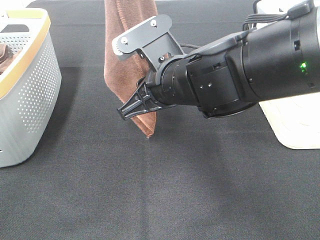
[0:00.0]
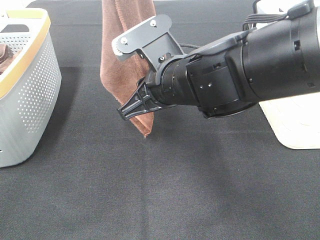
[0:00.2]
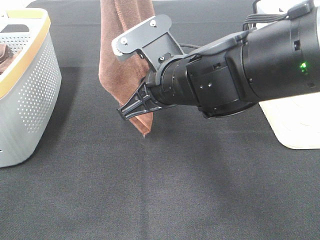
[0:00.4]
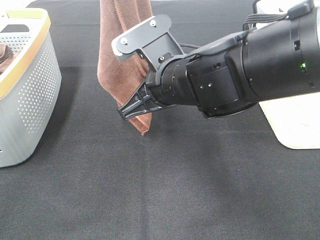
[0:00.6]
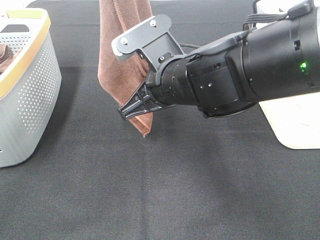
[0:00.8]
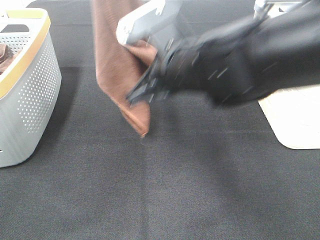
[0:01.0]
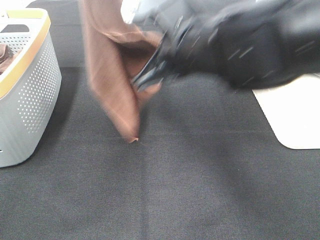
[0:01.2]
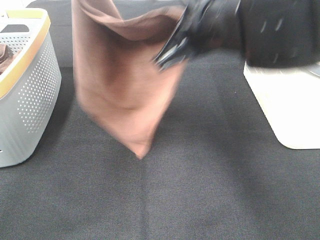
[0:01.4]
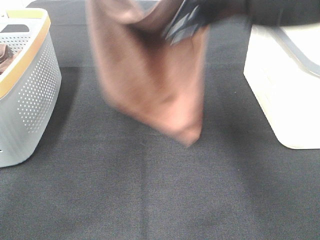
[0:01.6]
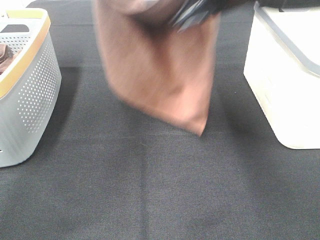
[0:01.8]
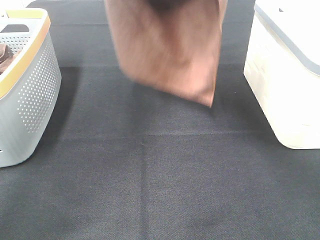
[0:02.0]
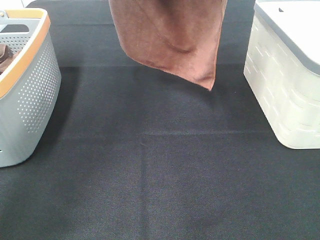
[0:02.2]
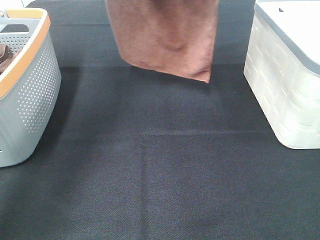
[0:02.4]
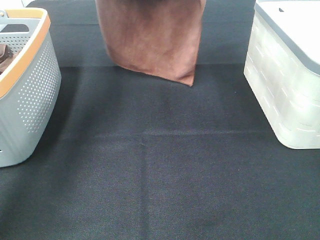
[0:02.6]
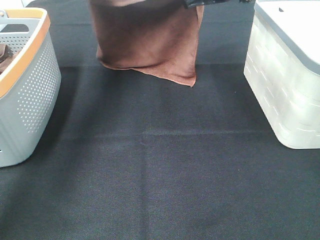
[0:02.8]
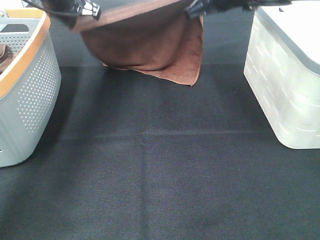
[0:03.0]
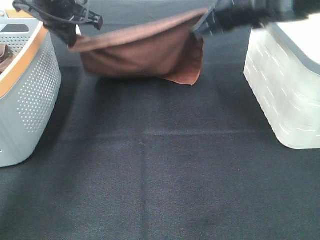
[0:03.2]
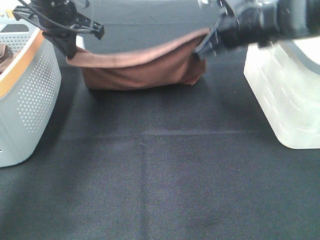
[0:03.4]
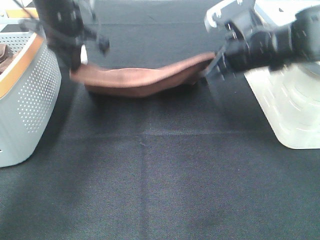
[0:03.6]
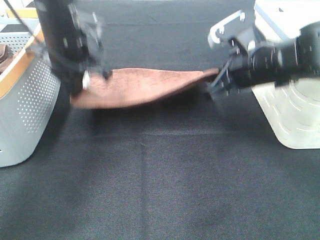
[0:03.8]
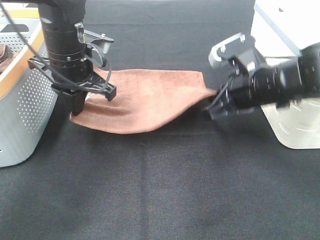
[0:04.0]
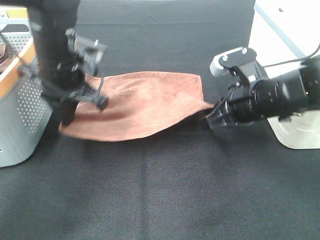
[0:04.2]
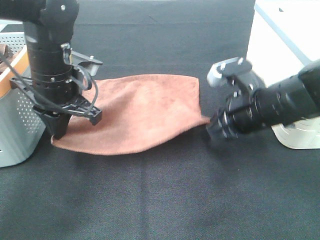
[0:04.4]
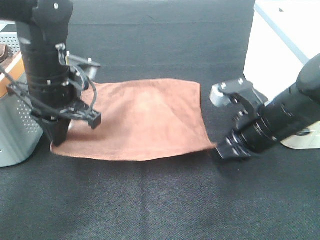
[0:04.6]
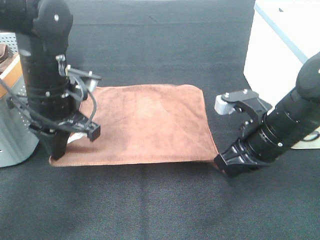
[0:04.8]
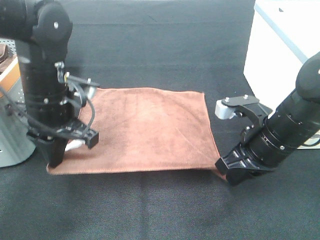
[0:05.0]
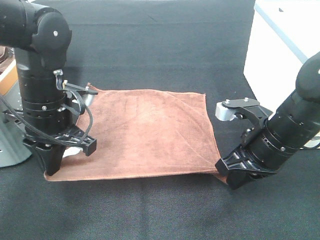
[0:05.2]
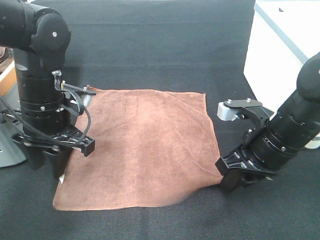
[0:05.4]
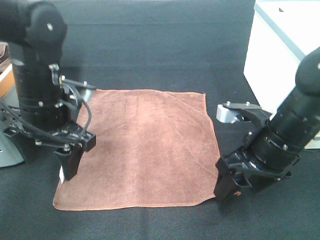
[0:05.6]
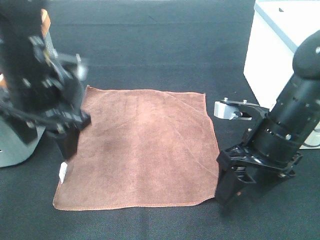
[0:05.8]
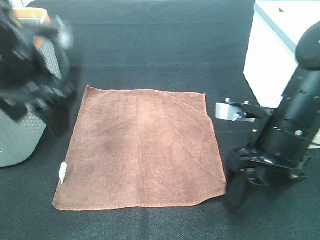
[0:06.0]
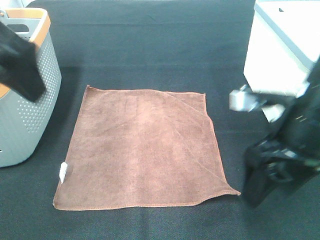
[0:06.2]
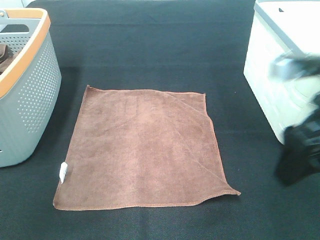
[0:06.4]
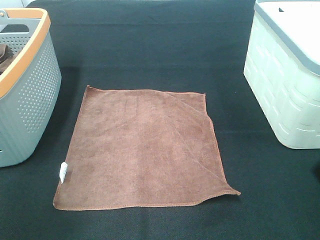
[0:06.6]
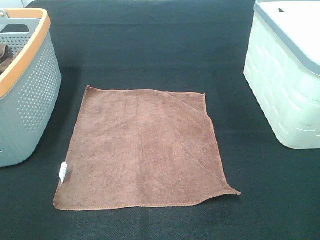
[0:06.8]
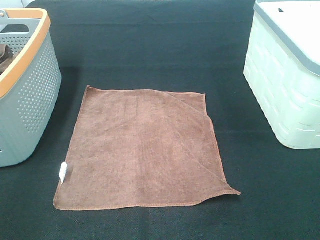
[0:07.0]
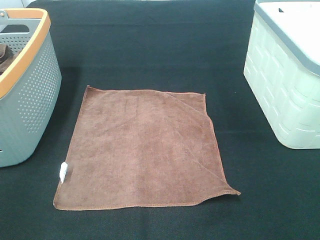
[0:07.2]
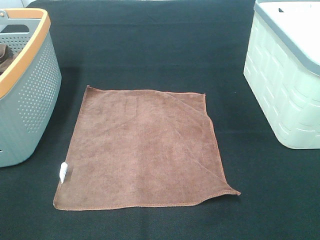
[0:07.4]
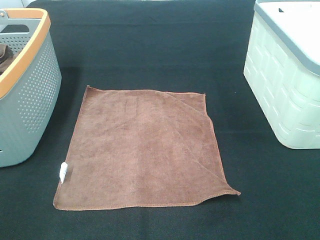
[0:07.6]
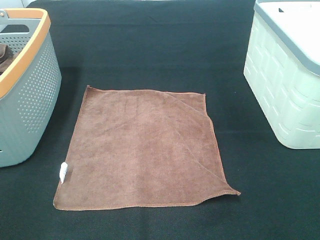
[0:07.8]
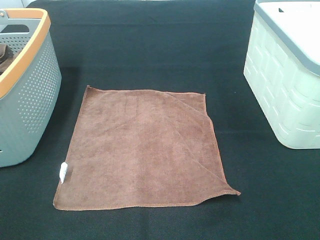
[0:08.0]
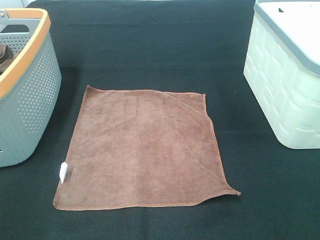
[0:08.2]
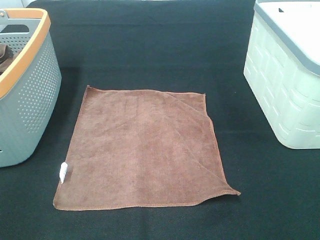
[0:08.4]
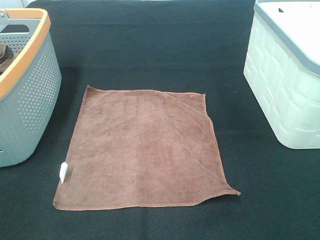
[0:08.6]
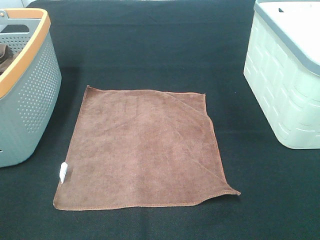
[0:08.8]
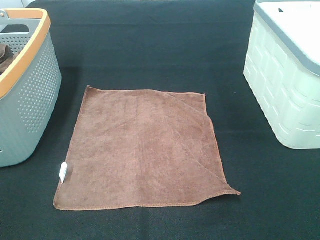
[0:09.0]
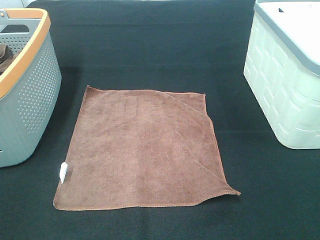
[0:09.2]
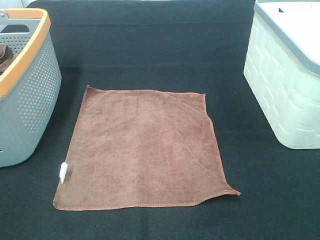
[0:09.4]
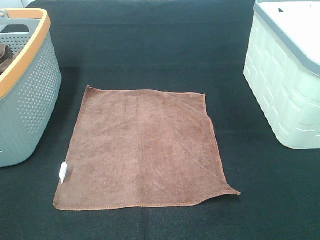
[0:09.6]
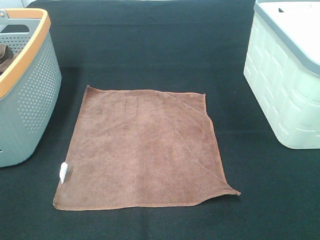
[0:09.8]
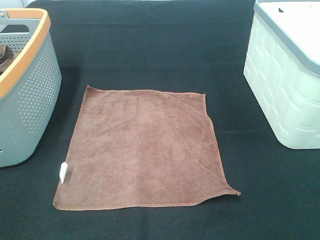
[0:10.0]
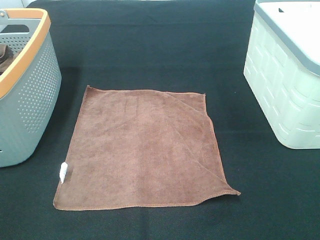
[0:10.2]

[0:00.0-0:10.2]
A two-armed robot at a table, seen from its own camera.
Task of the whole recording: Remove the towel and place it.
0:00.0 to 0:01.4: The right gripper goes roughly 10 cm upward, and closes its fingers, while the left gripper is displaced downward and forward by approximately 10 cm.
0:01.4 to 0:03.0: The left gripper is displaced downward and forward by approximately 20 cm. The right gripper moves forward, roughly 20 cm.
0:03.0 to 0:04.4: The two grippers go some 20 cm backward and downward.
0:04.4 to 0:05.8: The right gripper opens. Meanwhile the left gripper changes place by about 5 cm, and opens its fingers.
0:05.8 to 0:07.2: The left gripper goes roughly 30 cm backward and to the left. Meanwhile the right gripper heads backward, upward and to the right, covering about 25 cm.
0:08.8 to 0:10.2: Neither gripper changes place.

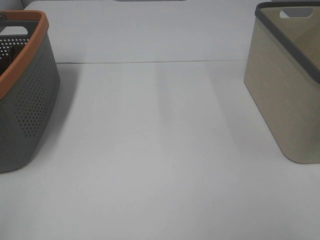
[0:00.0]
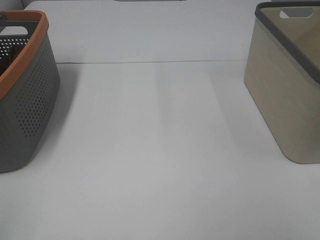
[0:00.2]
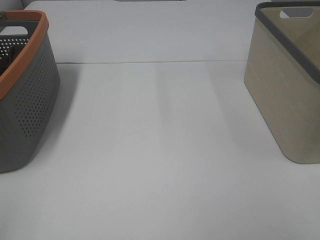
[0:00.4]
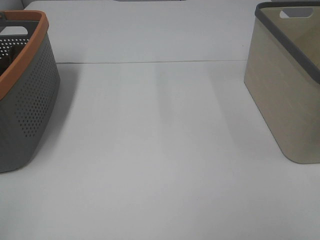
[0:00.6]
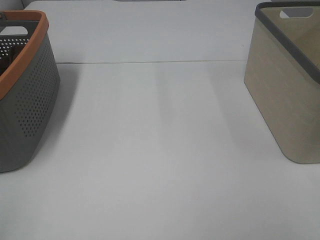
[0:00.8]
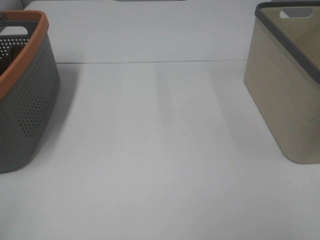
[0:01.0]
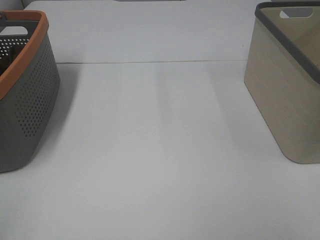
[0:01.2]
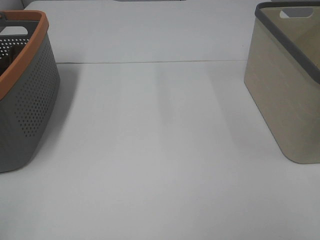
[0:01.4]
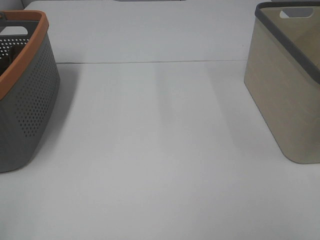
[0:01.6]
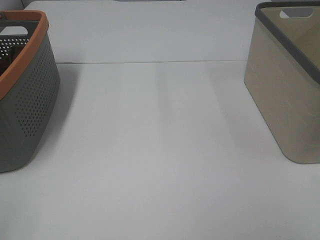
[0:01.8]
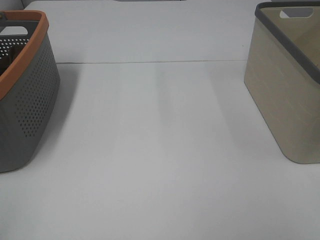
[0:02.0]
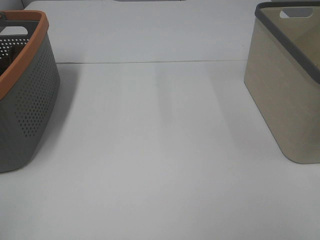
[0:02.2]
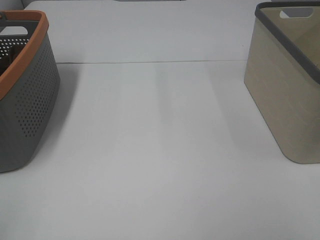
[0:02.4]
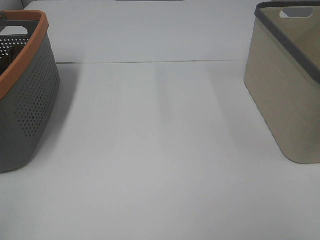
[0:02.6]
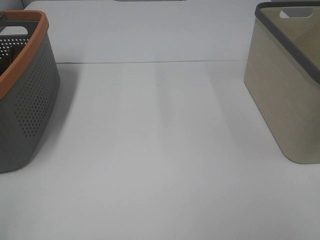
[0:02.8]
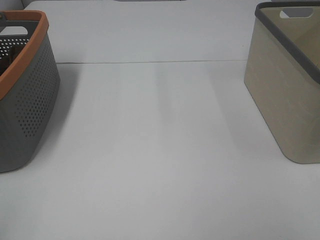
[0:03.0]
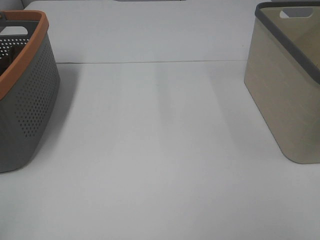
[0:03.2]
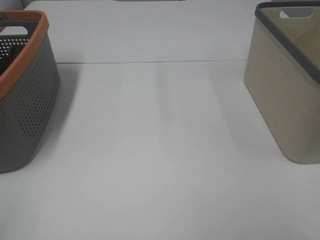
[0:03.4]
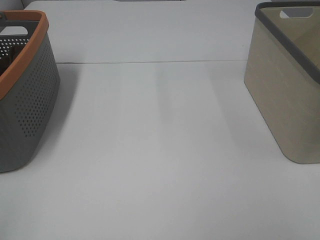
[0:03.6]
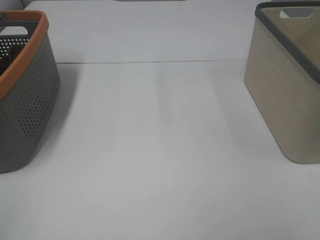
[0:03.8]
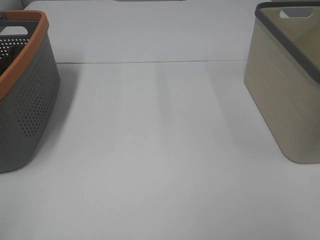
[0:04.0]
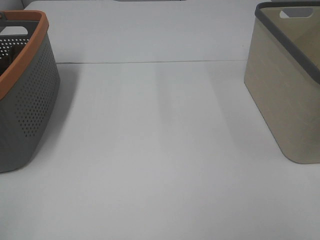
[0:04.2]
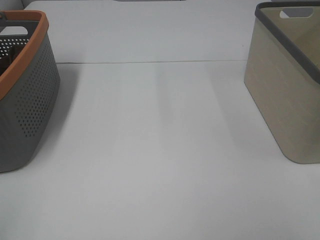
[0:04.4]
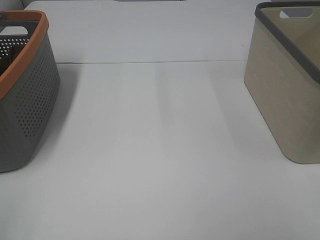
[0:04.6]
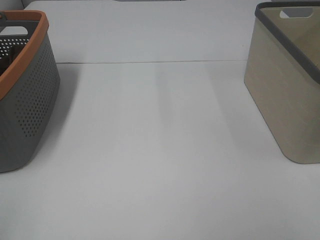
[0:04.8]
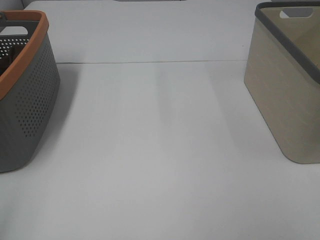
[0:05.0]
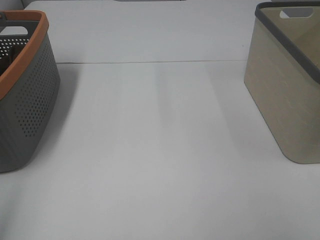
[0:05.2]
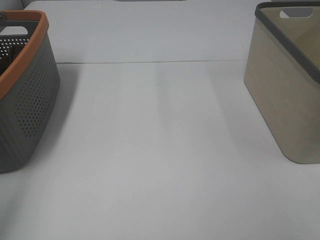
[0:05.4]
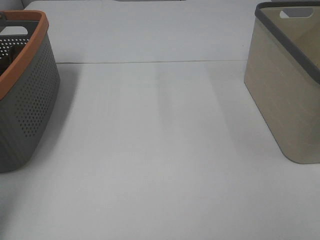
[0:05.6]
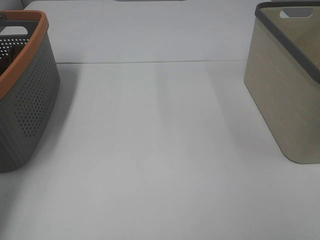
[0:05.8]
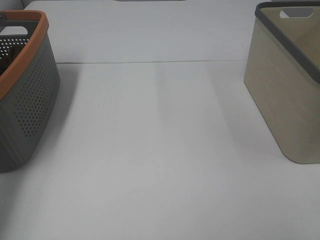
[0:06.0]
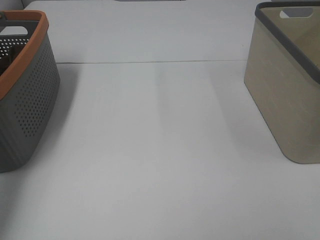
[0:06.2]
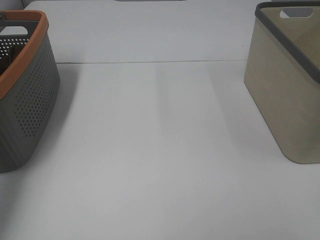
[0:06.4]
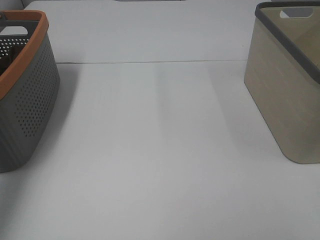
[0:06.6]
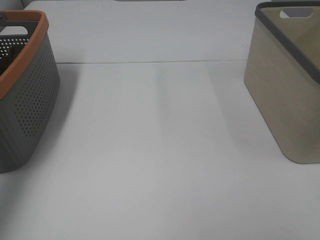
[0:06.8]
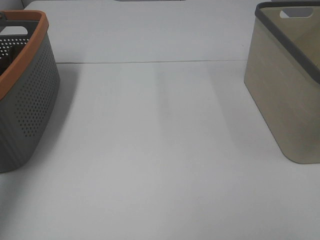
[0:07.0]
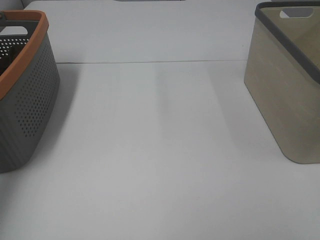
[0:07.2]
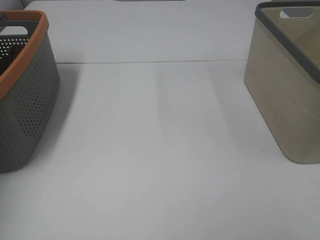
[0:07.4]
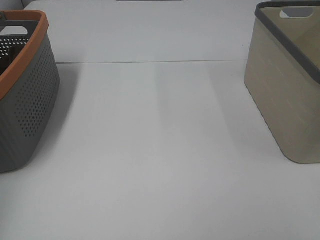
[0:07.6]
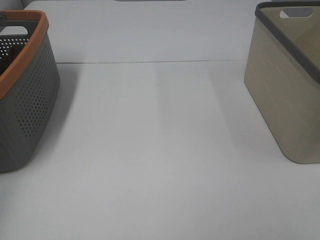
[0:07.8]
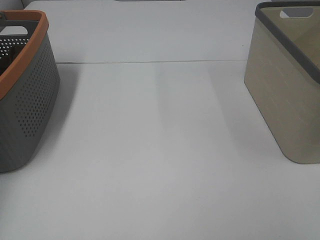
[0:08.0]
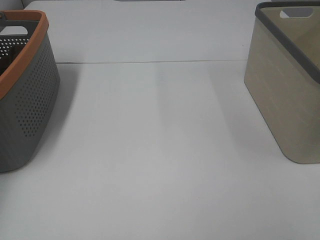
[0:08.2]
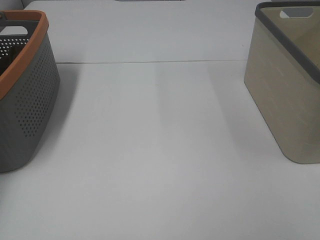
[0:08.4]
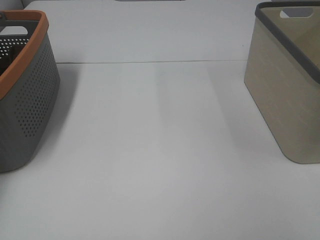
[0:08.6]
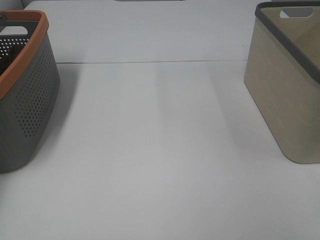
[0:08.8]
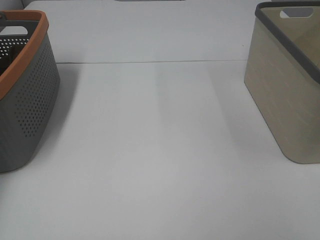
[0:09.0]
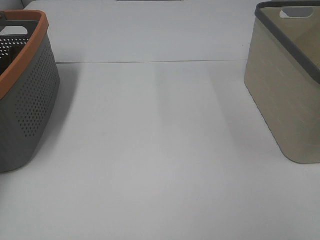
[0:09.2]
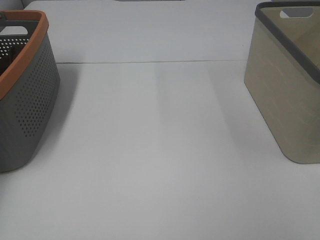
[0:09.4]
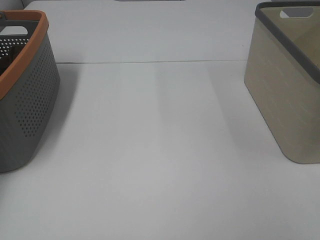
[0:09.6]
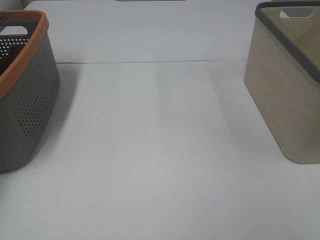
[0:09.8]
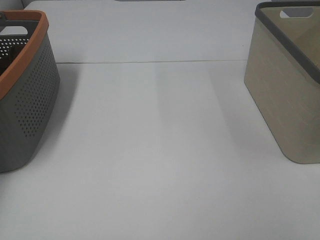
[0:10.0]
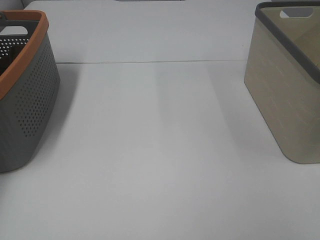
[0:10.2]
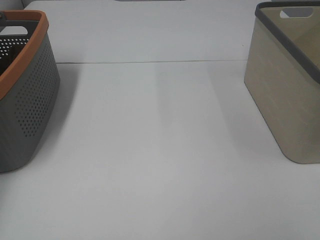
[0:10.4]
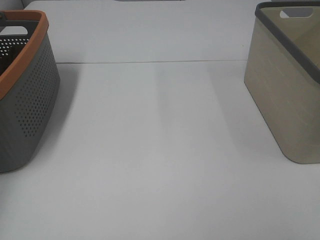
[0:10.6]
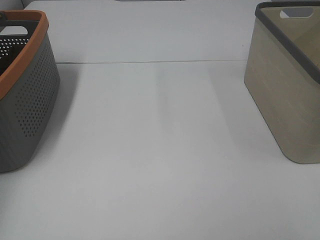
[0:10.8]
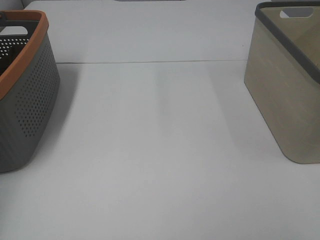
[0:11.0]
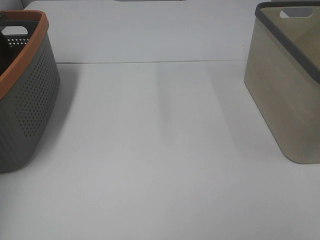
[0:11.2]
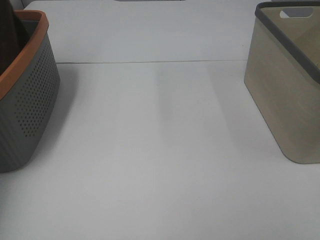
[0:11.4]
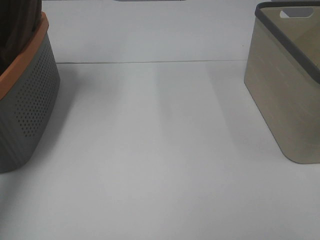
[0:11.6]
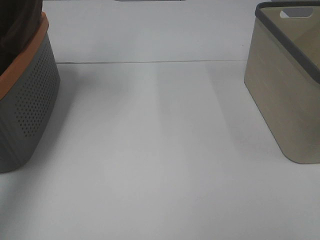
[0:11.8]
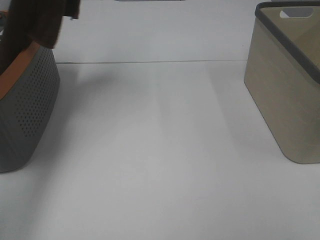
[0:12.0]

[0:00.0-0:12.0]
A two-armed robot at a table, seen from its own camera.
Task of the whole recording: Remove the towel and place it.
0:00.0 to 0:04.4: Neither gripper changes place.
0:04.4 to 0:06.0: The left gripper travels forward by about 25 cm.
0:06.0 to 0:07.6: The left gripper goes roughly 15 cm forward and to the left.
0:10.4 to 0:12.0: The left gripper is displaced to the right and upward by some 25 cm.
